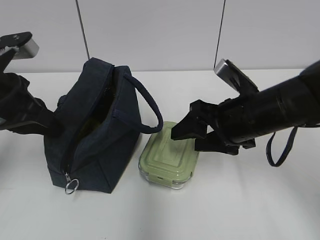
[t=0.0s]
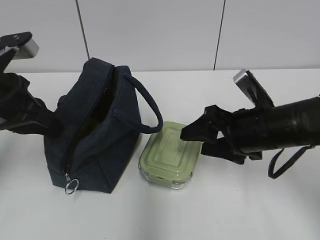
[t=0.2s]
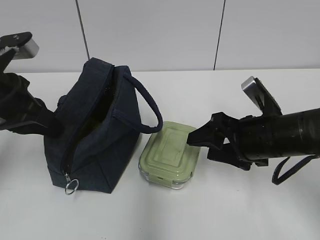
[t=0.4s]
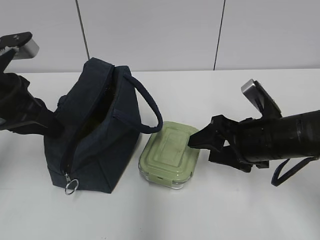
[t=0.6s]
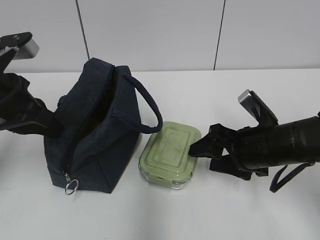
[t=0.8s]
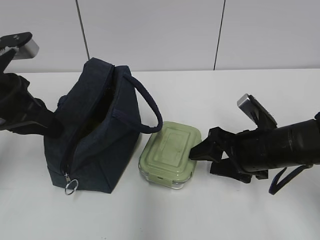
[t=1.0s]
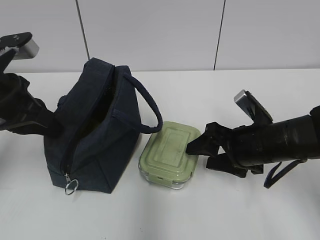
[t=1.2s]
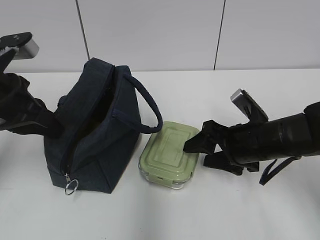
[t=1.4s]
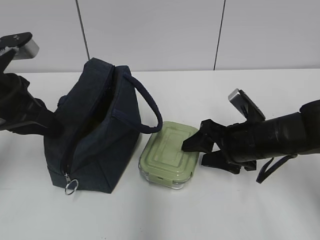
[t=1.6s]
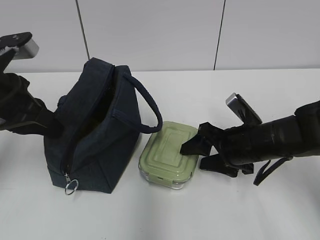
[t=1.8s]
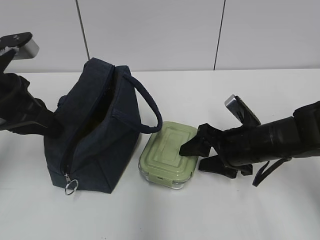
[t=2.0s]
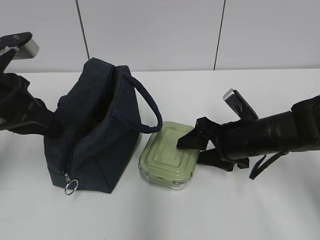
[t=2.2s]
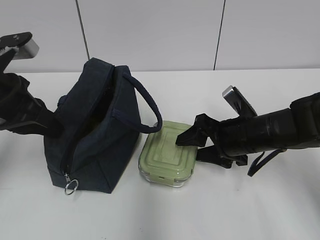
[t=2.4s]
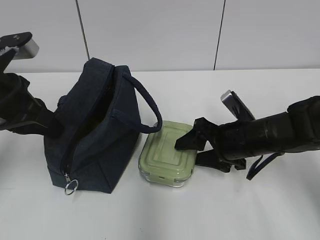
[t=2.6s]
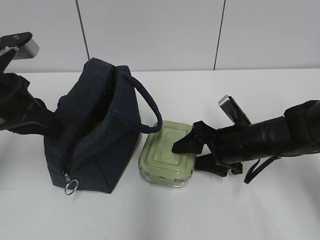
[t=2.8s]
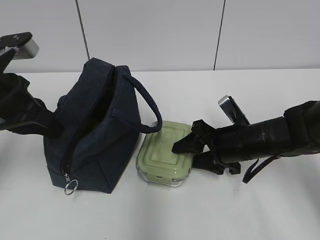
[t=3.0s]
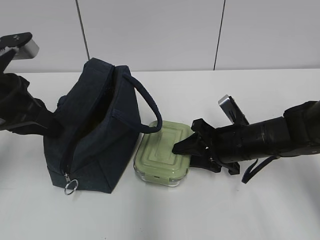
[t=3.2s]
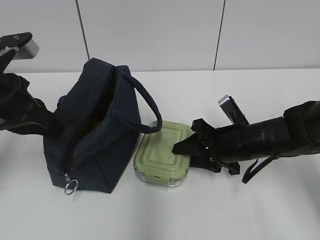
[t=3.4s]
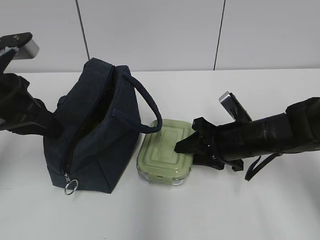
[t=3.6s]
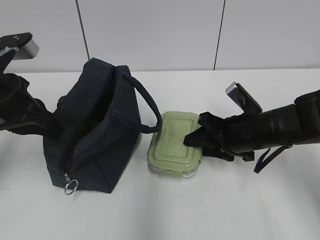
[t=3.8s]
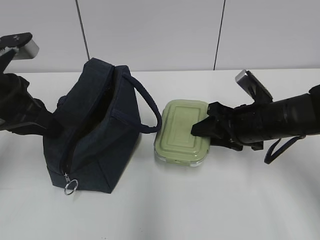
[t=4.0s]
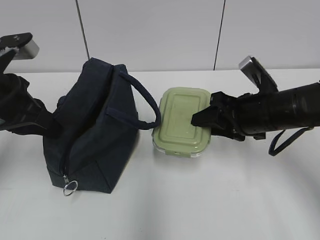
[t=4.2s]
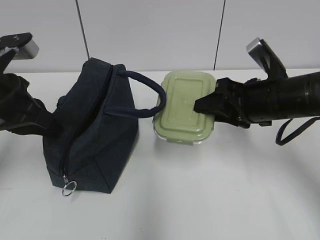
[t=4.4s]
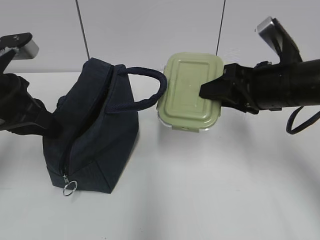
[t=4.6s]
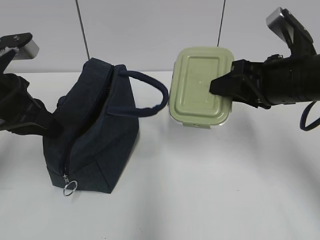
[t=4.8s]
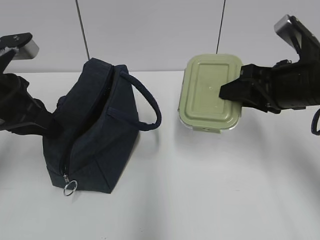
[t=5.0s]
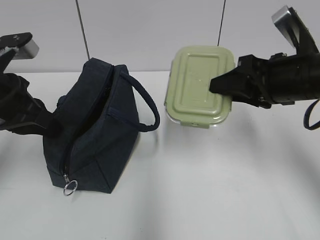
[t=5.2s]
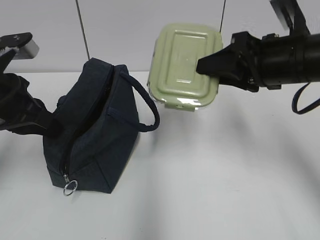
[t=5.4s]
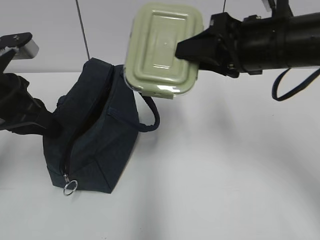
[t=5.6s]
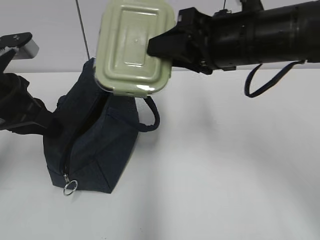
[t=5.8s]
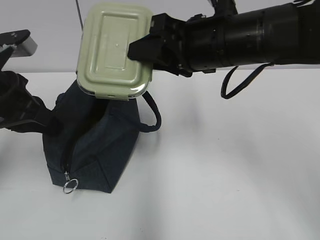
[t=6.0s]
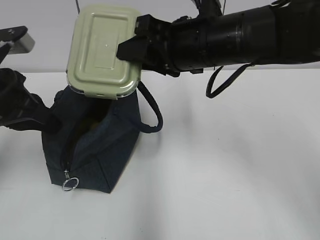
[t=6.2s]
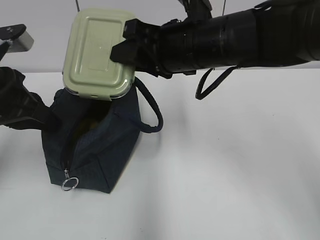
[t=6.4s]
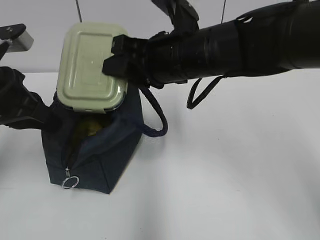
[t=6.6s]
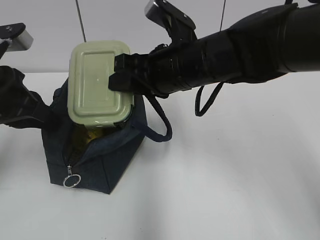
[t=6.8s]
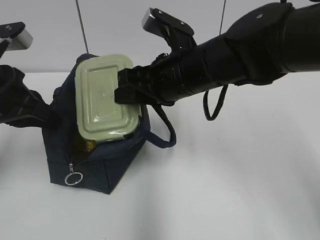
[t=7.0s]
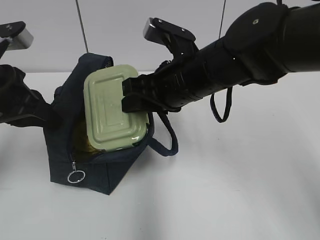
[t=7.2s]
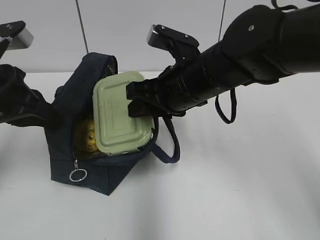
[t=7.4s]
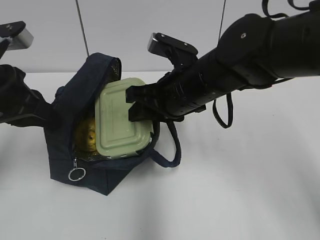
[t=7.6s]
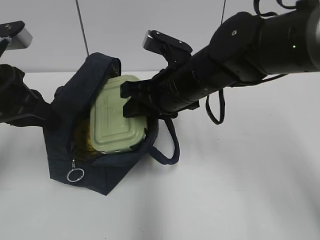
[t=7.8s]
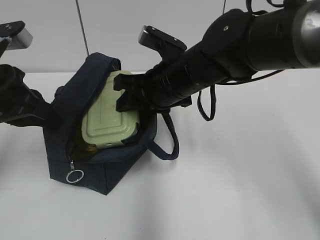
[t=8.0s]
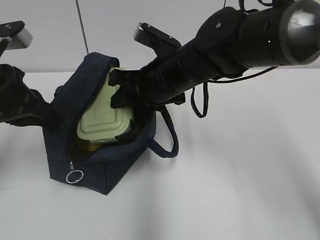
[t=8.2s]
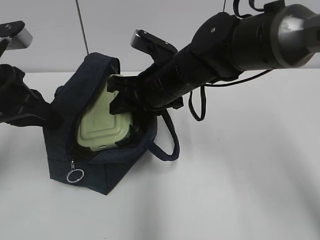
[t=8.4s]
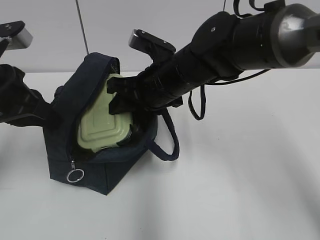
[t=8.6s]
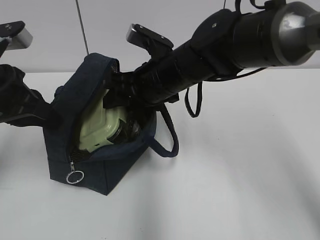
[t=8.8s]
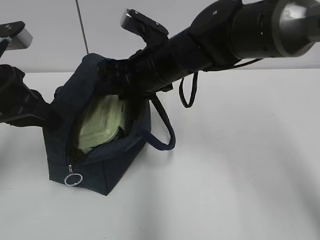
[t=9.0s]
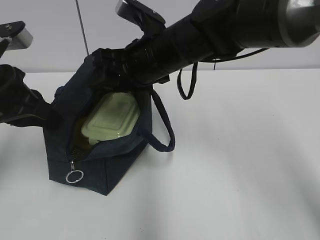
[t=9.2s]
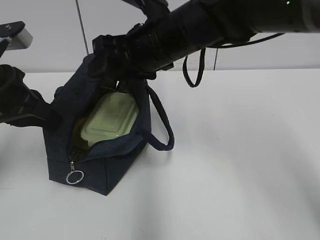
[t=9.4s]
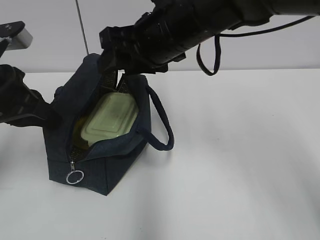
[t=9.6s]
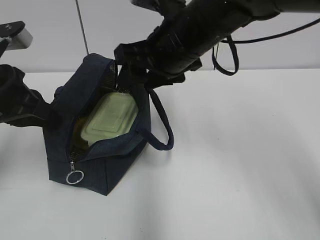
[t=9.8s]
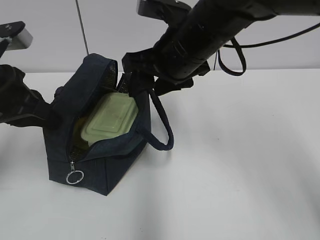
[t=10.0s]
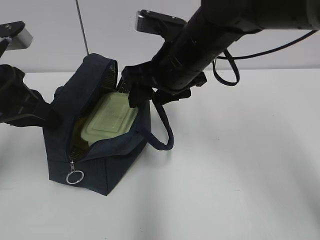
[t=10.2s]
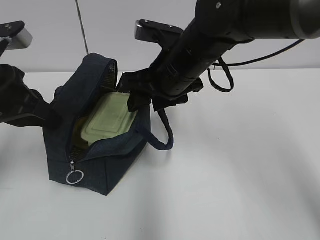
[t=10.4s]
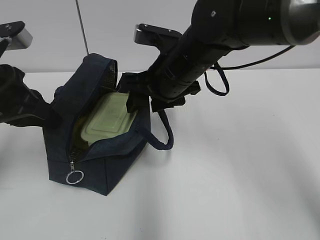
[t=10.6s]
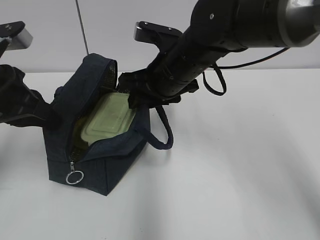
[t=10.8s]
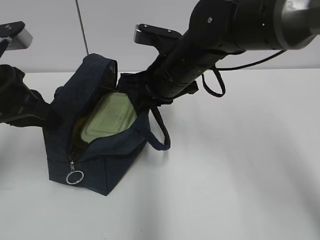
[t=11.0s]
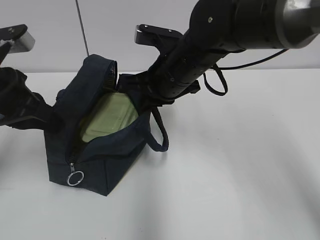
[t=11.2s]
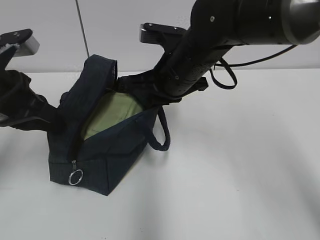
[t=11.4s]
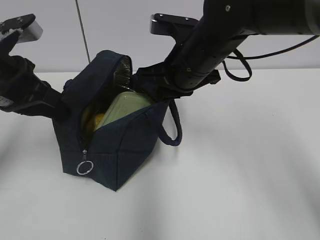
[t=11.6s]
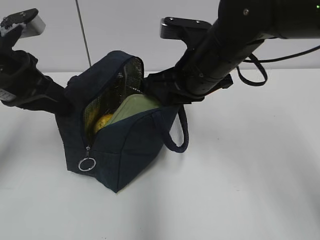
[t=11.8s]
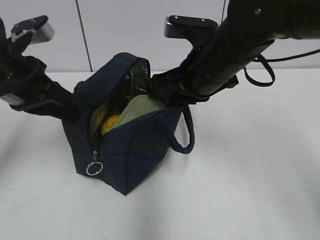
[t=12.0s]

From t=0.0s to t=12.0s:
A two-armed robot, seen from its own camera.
Step, from t=0.0s to t=3.6s: Grab the lunch box with your right hand.
Step, from t=9.2s to t=11.0s: Grab the lunch bag with your right hand.
From t=0.0s to t=1.6s: The right gripper heads downward, covering about 5 cm.
From t=1.6s to t=3.0s: There are only small adjustments of the grippers.
From t=3.0s to t=4.4s: The right gripper travels upward by approximately 10 cm.
From t=4.4s to t=6.0s: The right gripper shifts approximately 15 cm to the left and upward.
From t=6.0s to t=7.6s: The right gripper is displaced downward by roughly 5 cm.
From t=7.6s to t=9.0s: The right gripper shifts by approximately 5 cm.
From t=10.4s to t=12.0s: The right gripper closes.

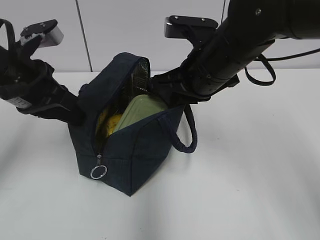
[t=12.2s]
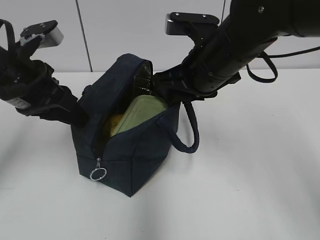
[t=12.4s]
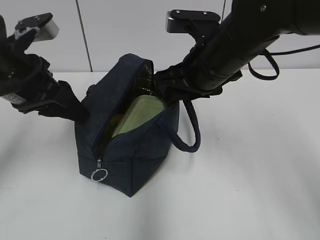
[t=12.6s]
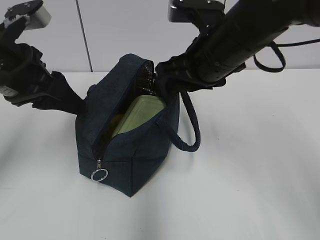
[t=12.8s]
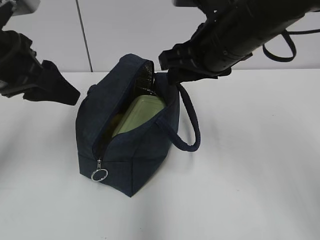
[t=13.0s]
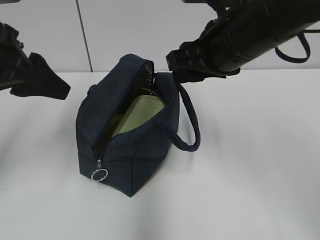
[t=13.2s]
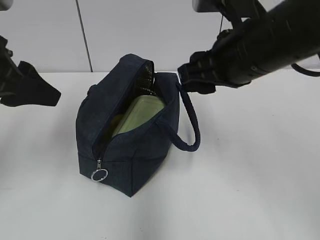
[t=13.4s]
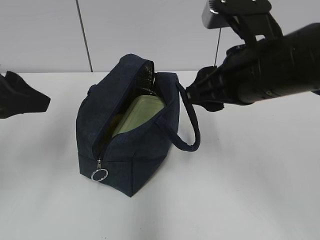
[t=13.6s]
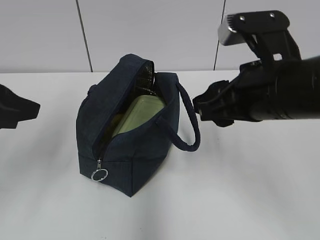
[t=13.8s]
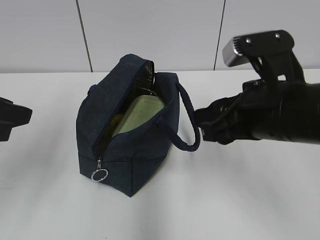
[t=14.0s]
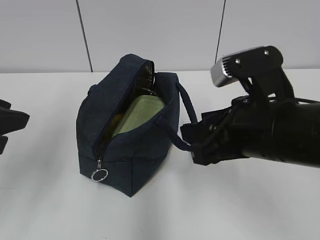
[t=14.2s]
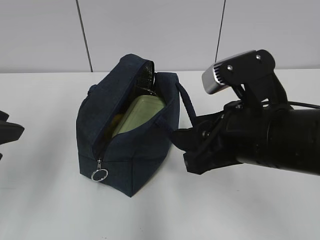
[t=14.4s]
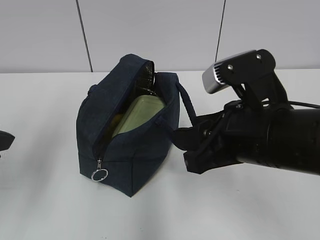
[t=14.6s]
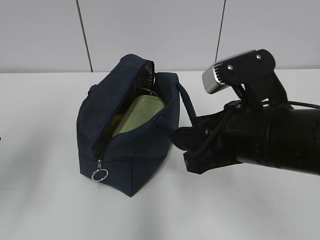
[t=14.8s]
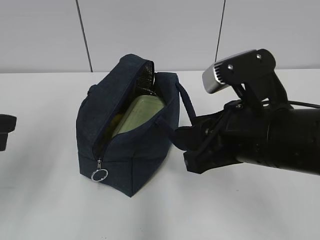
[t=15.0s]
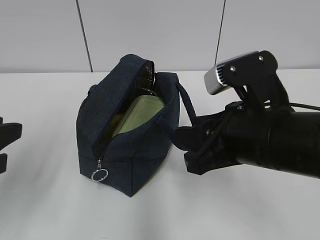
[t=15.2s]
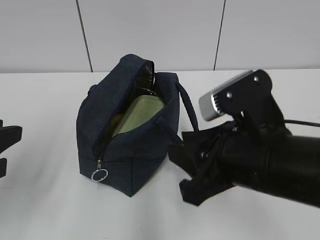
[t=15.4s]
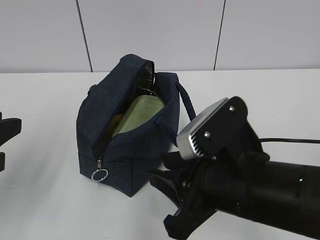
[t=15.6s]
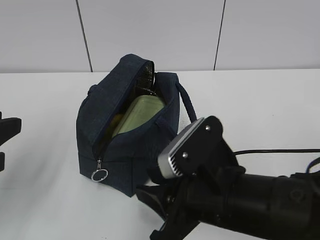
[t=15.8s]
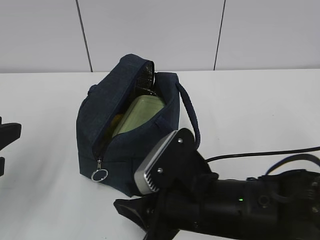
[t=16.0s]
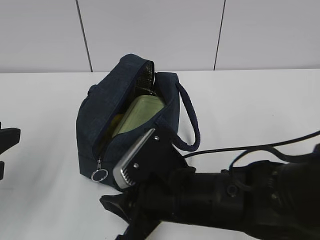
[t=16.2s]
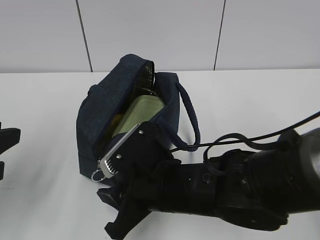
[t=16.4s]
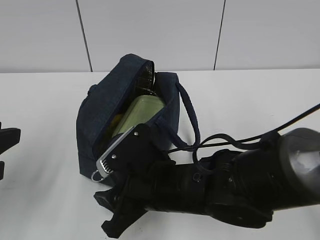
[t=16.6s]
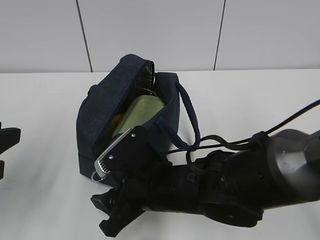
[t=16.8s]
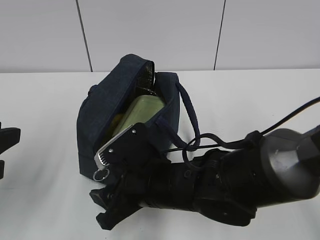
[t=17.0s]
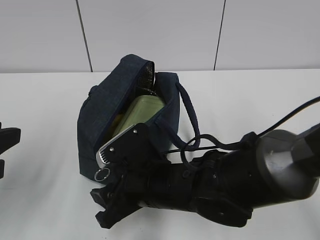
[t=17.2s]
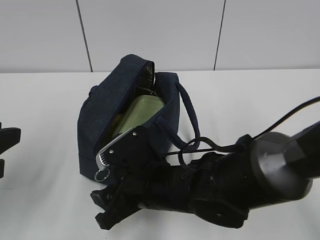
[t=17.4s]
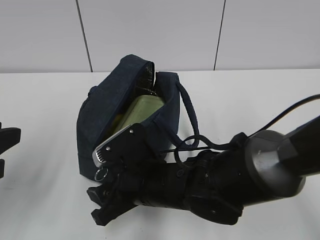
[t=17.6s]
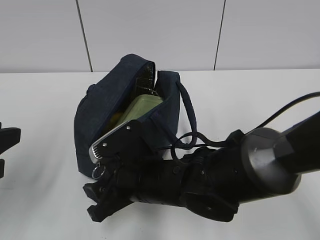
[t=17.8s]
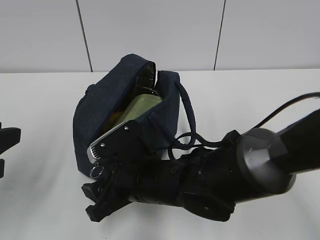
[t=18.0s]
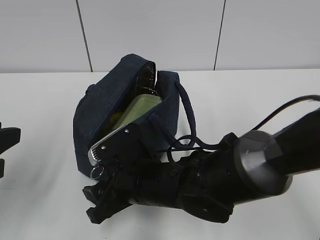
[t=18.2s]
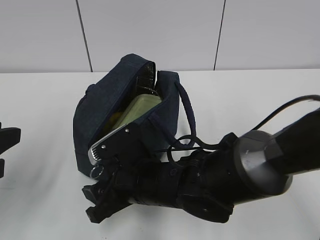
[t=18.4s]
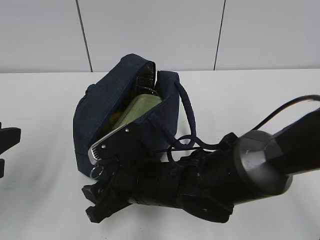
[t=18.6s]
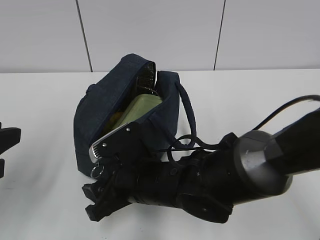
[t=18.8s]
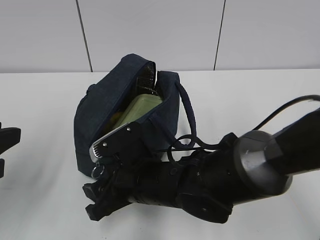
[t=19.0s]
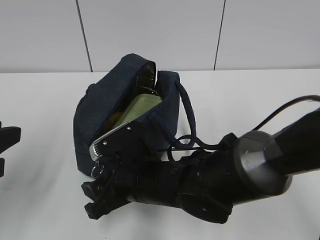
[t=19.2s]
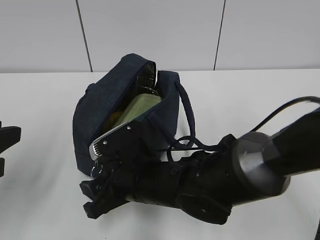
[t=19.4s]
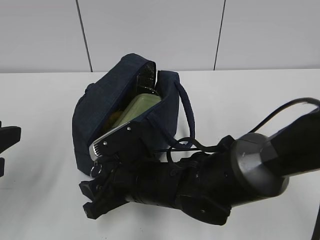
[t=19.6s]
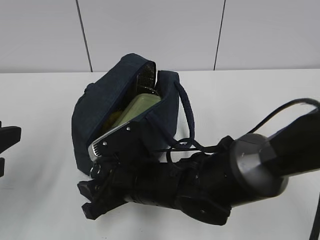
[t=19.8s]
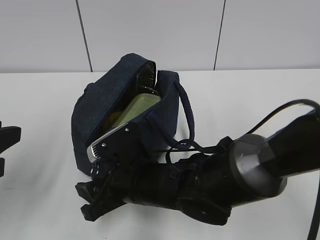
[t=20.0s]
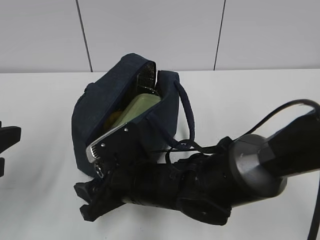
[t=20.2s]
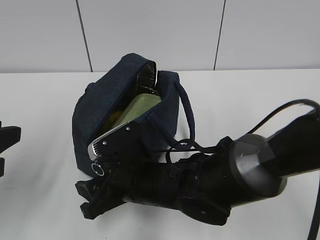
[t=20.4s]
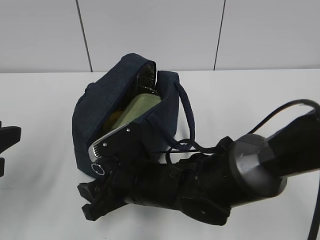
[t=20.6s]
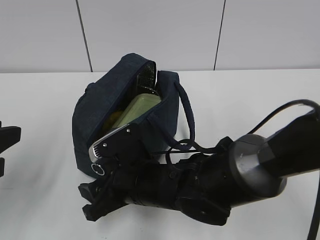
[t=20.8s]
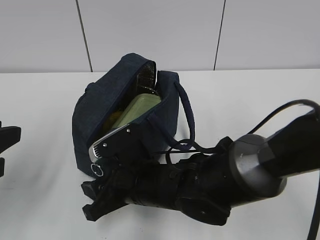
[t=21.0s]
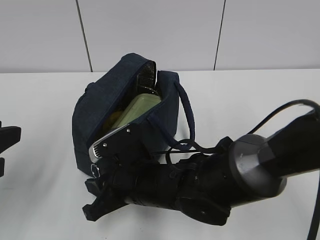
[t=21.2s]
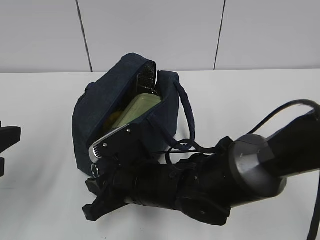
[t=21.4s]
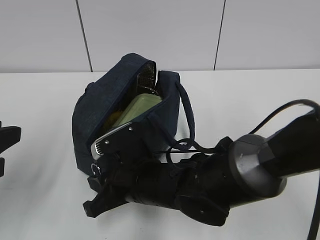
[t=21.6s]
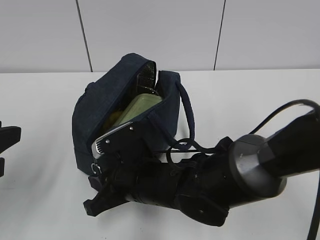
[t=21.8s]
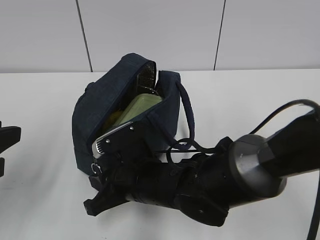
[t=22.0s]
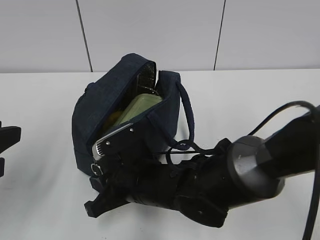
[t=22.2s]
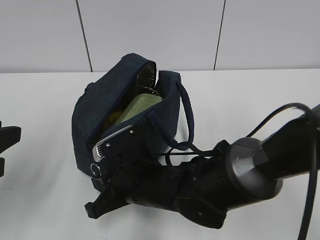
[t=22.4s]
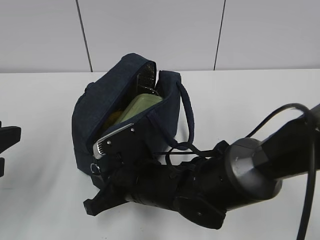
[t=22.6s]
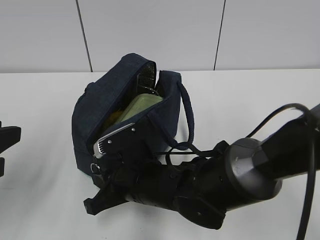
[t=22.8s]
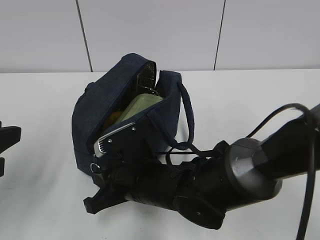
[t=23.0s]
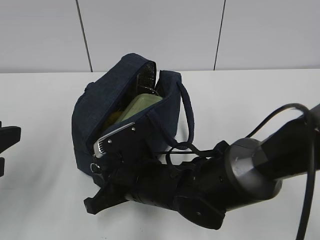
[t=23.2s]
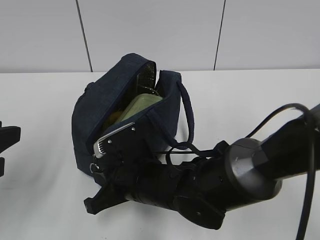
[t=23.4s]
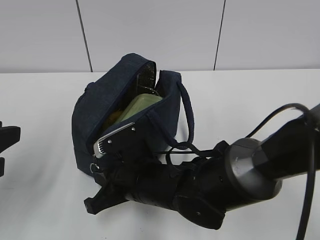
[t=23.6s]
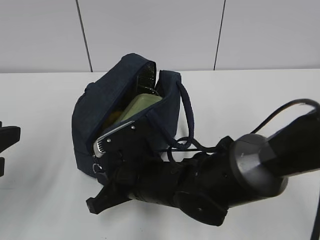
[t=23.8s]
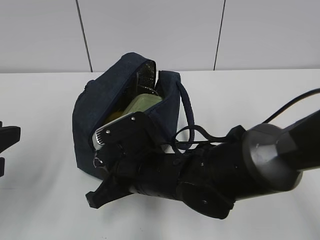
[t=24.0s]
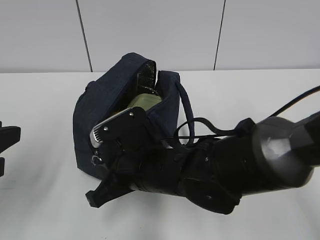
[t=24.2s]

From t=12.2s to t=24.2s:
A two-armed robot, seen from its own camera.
From t=12.2s to t=13.8s: The two grippers go about 10 cm backward. The left gripper opens up; the right gripper opens.
From t=13.8s to t=15.2s: The left gripper ends up about 5 cm from where it was, while the right gripper moves approximately 5 cm.
From t=15.2s to t=16.6s: The right gripper shifts approximately 15 cm downward and to the left.
From t=16.6s to t=18.2s: There are only small adjustments of the grippers.
From t=18.2s to t=19.8s: Neither gripper changes place.
From t=19.8s to t=21.2s: The right gripper closes its fingers.
From t=21.2s to t=22.6s: Both grippers stay about where they are.
From t=22.6s to t=24.2s: There are only small adjustments of the grippers.
